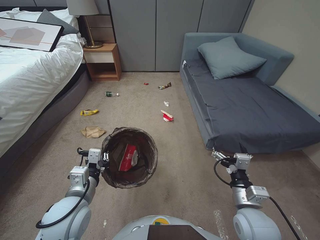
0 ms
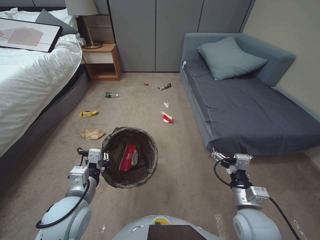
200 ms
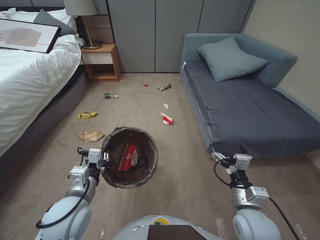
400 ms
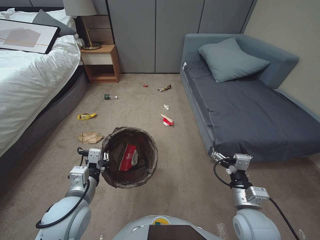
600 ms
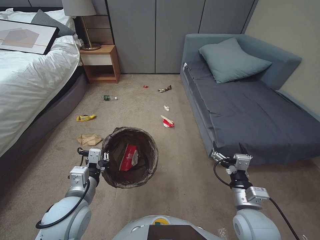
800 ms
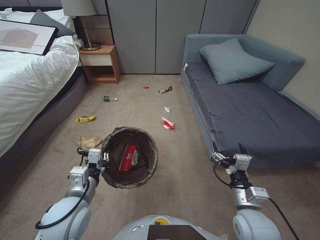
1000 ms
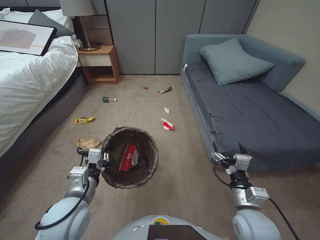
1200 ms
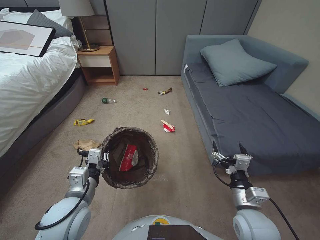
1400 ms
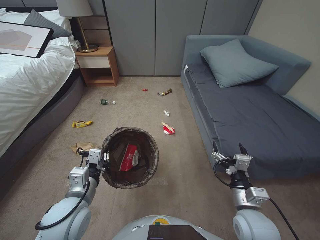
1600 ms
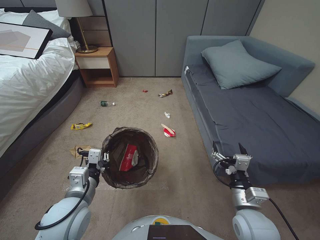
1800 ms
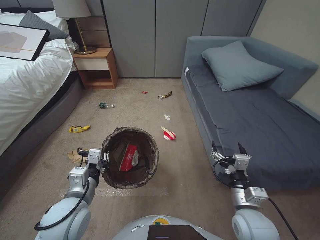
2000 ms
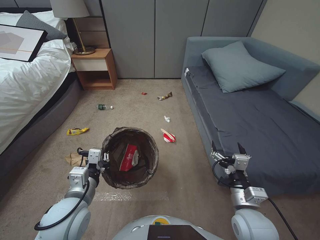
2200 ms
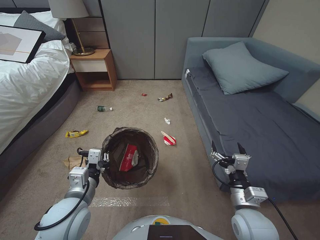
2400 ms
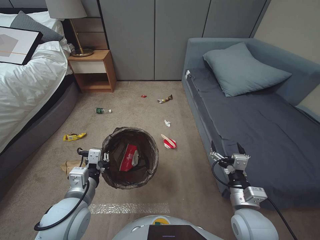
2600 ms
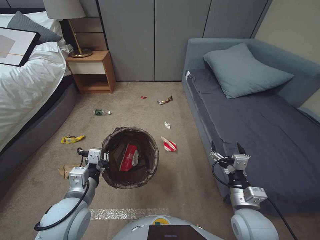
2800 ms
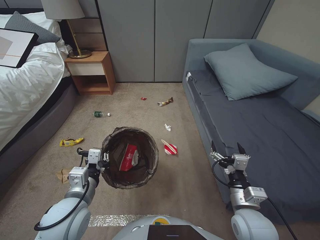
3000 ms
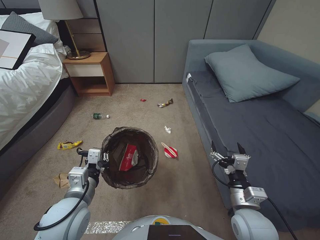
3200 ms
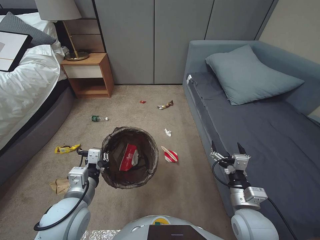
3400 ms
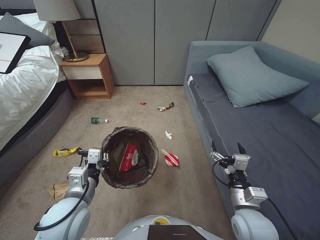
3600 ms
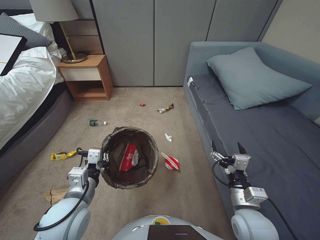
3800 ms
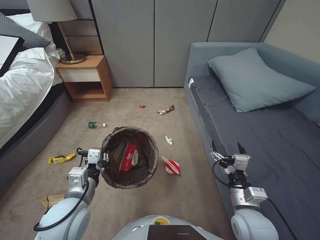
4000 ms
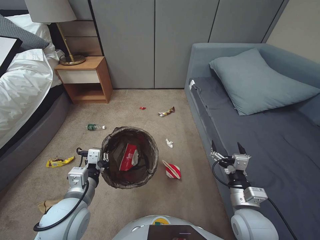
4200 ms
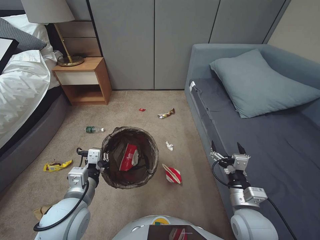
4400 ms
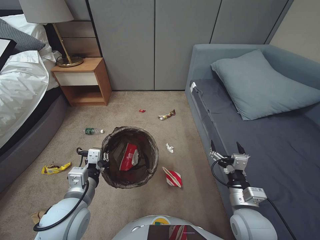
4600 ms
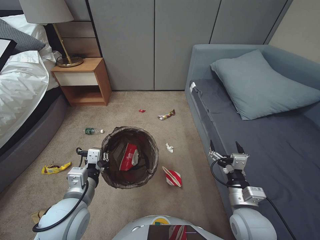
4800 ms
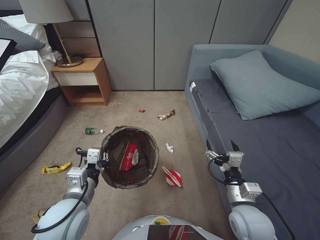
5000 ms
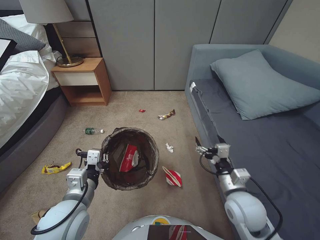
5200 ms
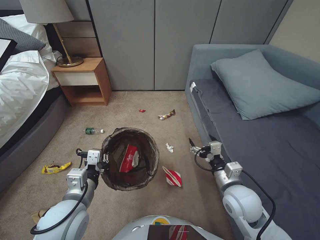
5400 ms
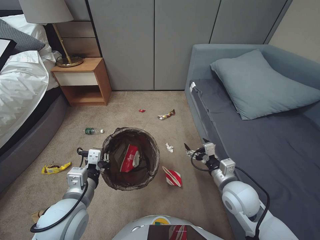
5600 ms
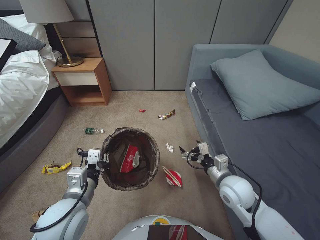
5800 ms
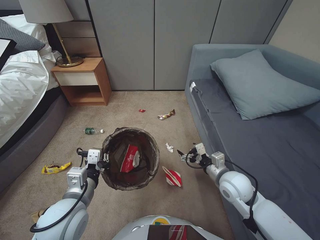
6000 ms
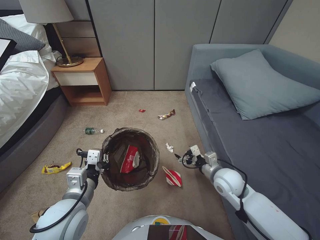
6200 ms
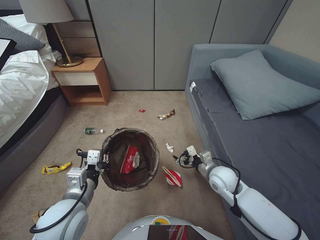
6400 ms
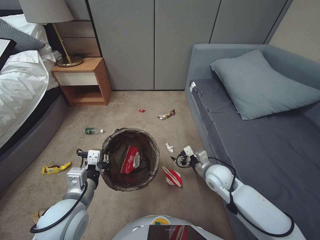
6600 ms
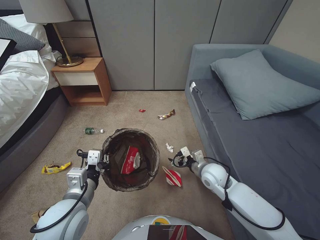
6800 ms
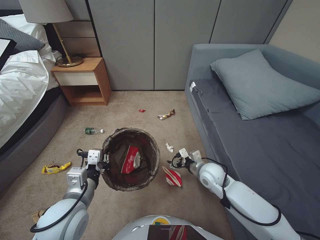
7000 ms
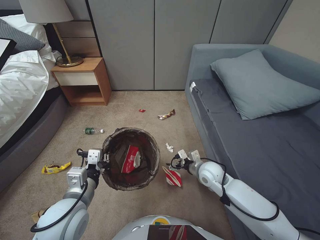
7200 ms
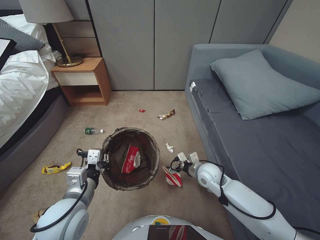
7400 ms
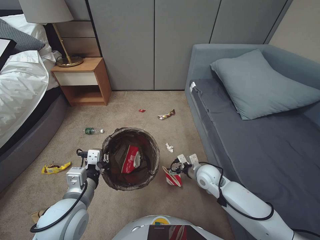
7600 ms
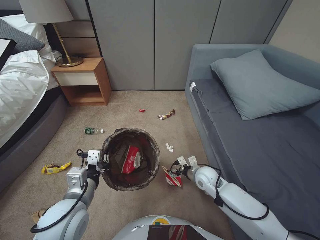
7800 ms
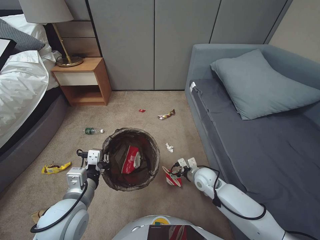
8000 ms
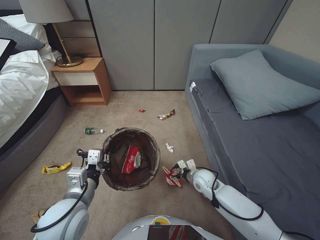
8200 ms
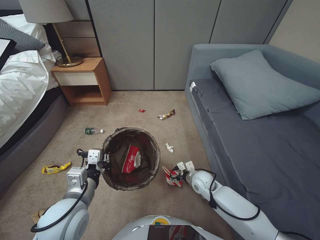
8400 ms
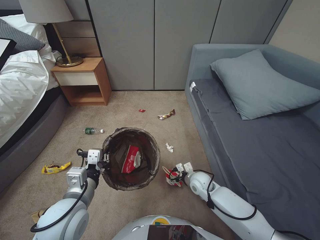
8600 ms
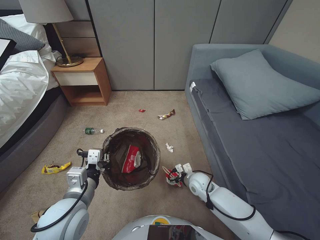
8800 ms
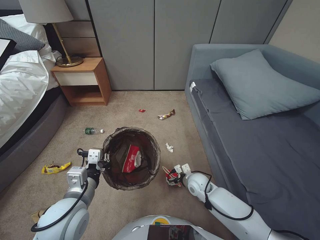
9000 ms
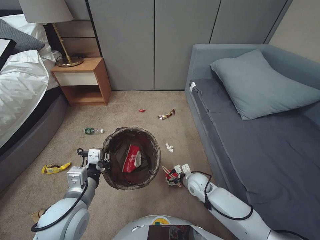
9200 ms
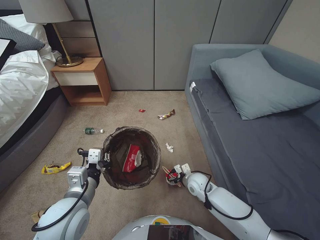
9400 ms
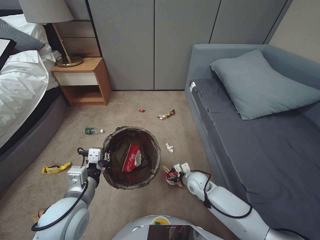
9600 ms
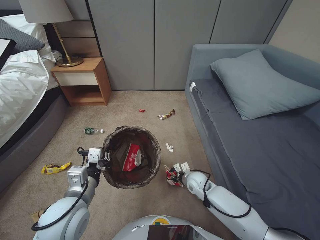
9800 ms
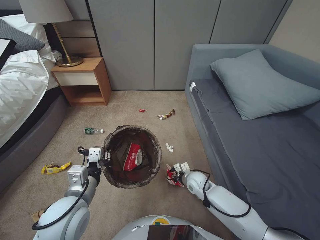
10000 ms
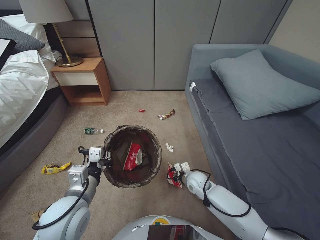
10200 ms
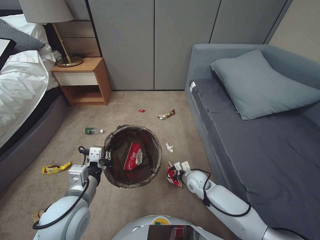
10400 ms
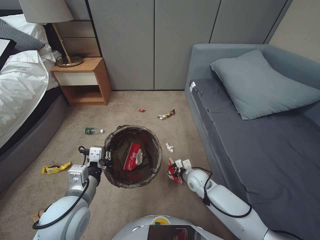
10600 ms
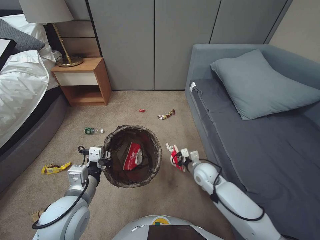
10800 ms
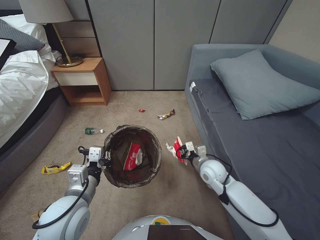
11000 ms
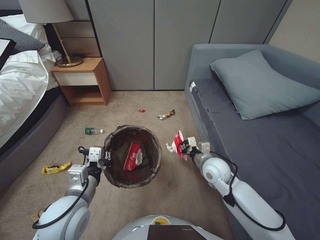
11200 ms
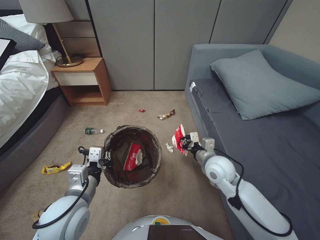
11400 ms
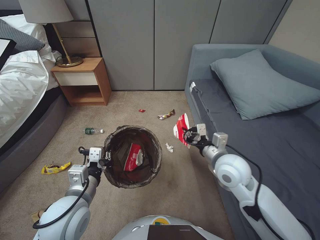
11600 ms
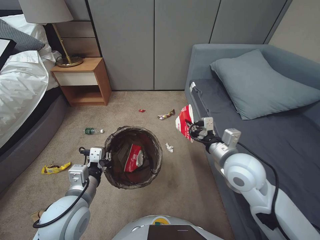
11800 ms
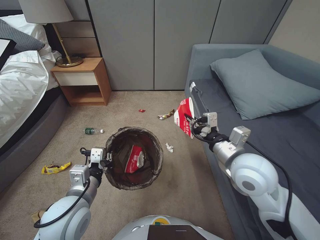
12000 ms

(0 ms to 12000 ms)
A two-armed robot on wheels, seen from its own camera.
Task of the whole recording: Pick up the trash bin, then pick up the garbage from the floor and place it into the trash bin.
0 ms - 4400 ms: The two grippers keep their place.
4400 ms - 6000 ms: The right gripper is displaced forward by roughly 10 cm.
6000 ms - 7600 ms: The right gripper is displaced downward and forward by roughly 10 cm.
7600 ms - 9000 ms: The right gripper moves downward, some 10 cm.
9000 ms - 10400 ms: The right gripper closes.
10400 ms - 12000 ms: The right gripper shifts some 30 cm upward.

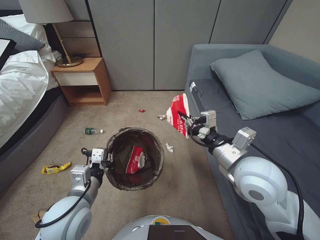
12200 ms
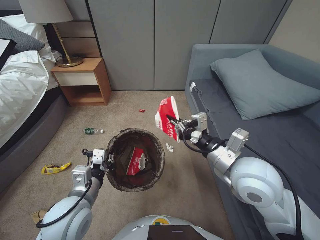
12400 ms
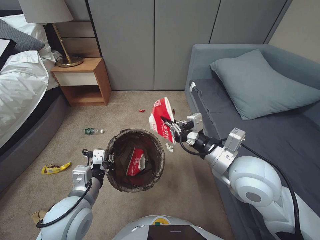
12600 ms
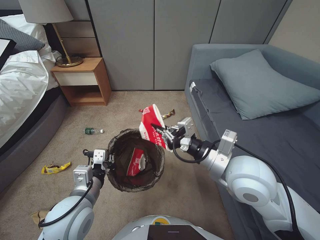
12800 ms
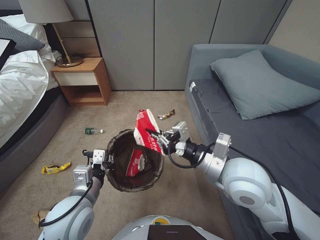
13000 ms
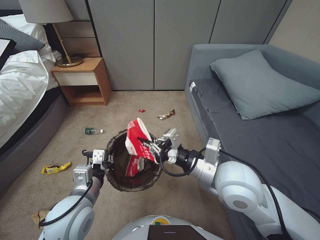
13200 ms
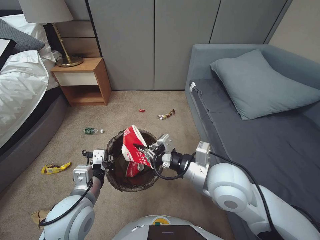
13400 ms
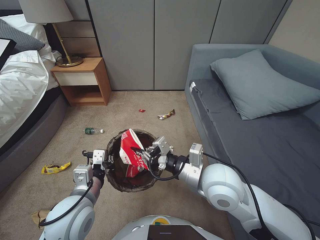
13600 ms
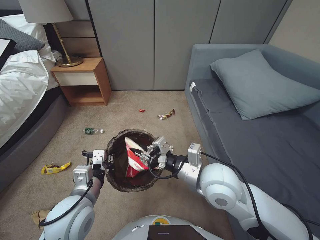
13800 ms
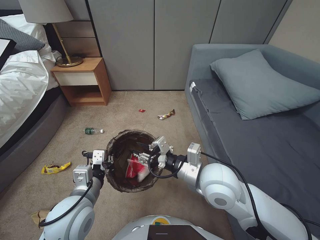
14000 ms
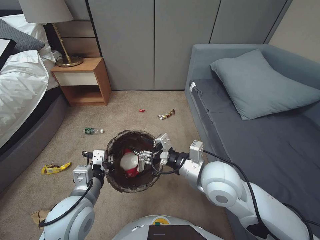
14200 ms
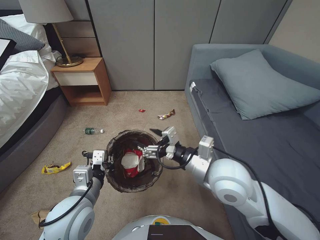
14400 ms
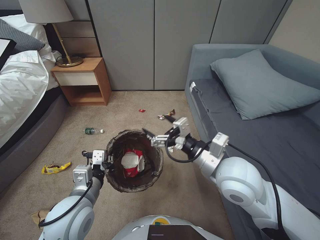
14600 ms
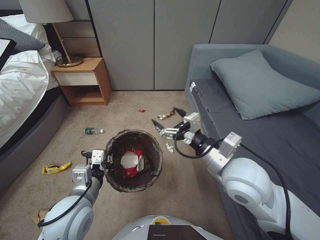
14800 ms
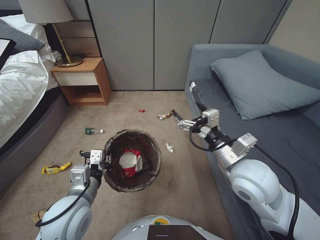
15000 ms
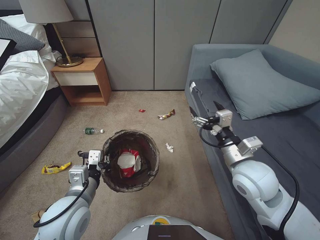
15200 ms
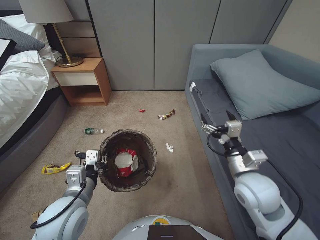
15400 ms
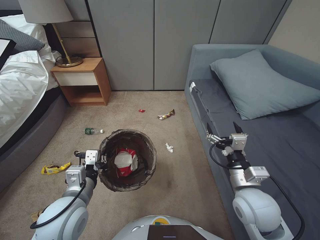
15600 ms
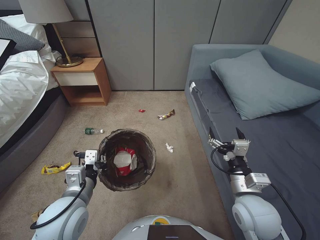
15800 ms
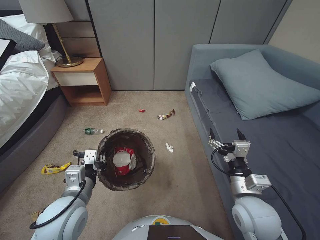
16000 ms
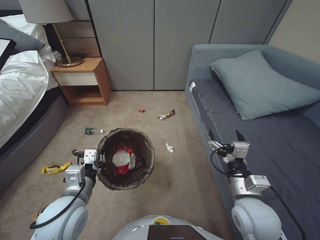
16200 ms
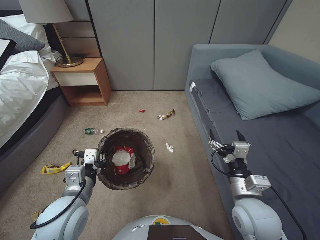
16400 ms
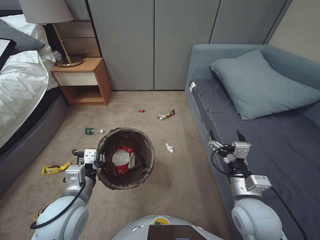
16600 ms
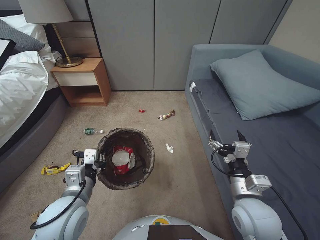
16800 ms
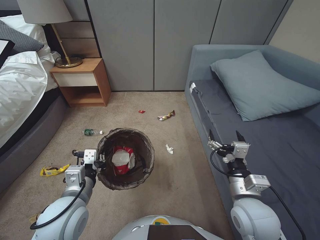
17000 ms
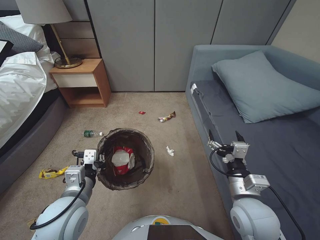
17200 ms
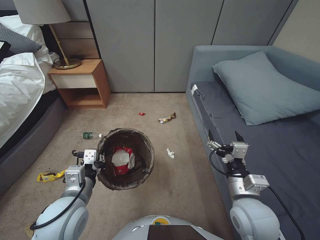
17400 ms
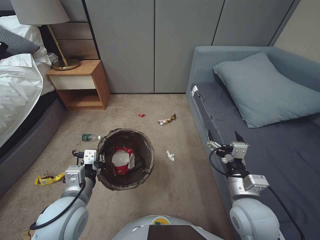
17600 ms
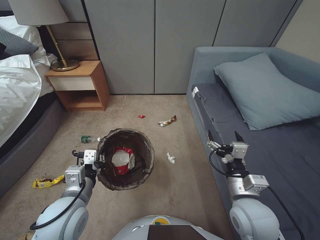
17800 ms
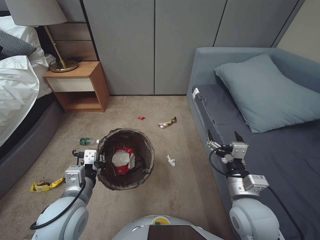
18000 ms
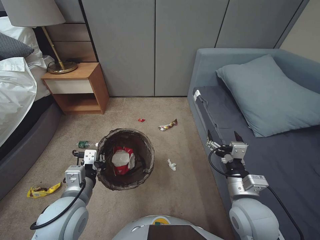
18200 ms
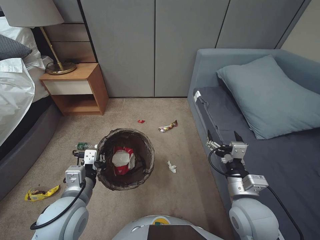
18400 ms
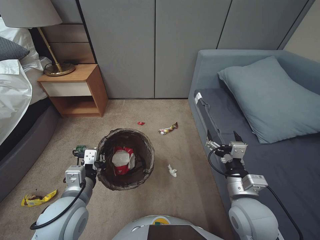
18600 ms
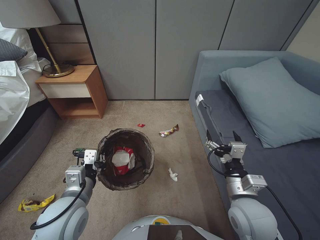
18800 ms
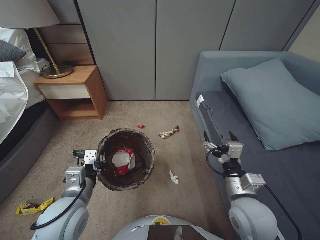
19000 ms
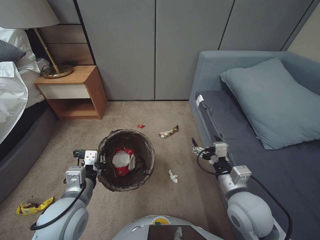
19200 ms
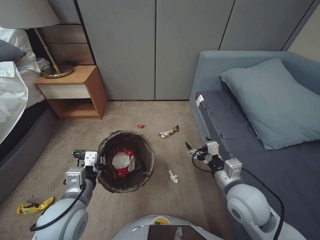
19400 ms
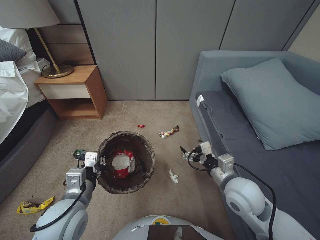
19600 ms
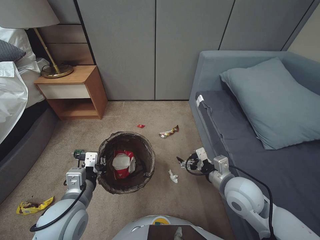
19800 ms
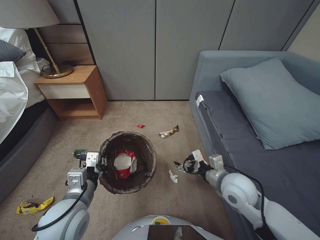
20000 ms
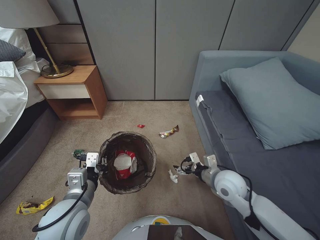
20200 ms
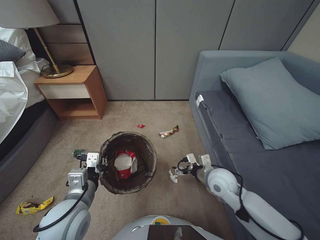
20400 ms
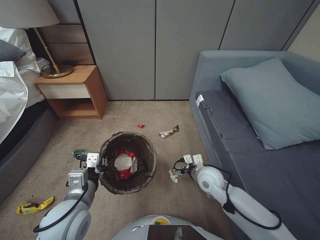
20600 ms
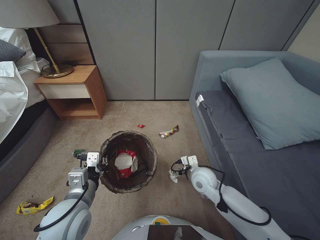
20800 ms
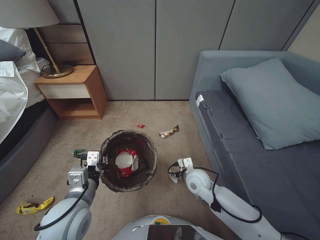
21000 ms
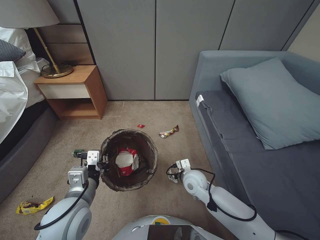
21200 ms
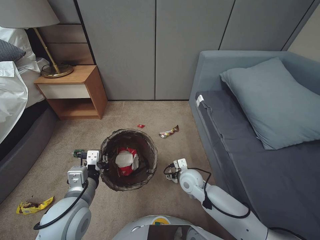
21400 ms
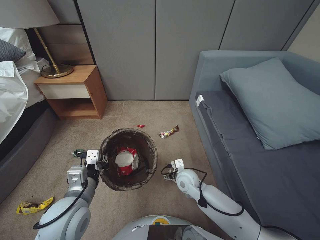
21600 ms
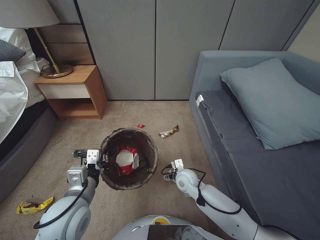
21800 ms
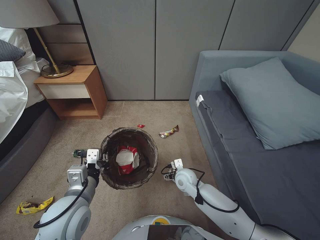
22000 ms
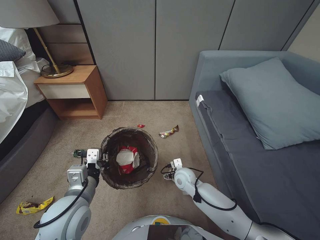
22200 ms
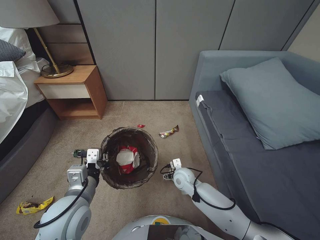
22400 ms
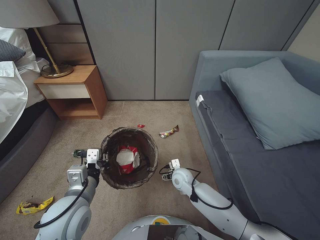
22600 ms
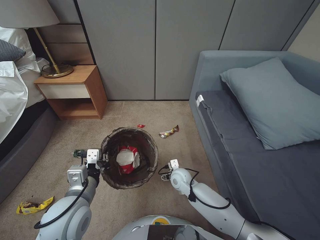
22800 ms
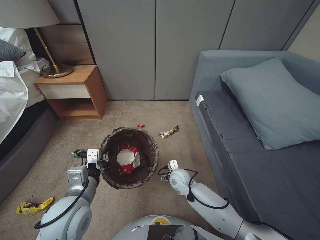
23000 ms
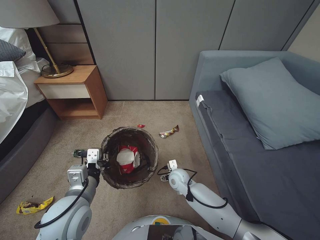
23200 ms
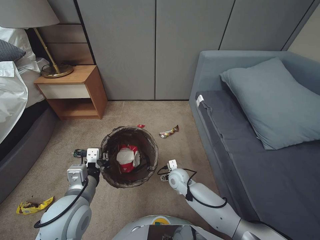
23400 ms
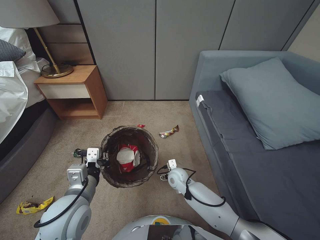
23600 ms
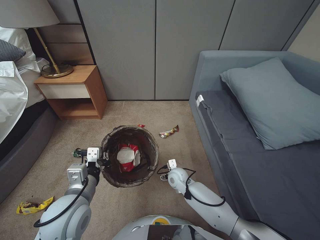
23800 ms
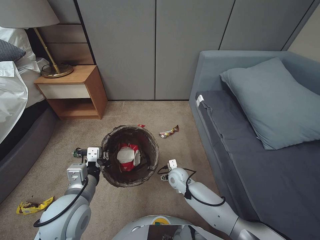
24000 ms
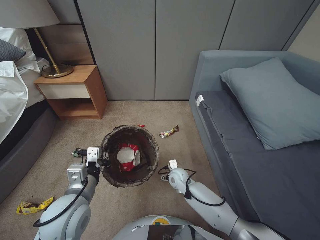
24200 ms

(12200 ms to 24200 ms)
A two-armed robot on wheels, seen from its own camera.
Task of the whole recording: Pick up the trash bin, then pick up the garbage from the floor and place it into the trash bin.
12200 ms - 13800 ms: The right gripper heads to the left, covering some 10 cm.
13800 ms - 15200 ms: The right gripper travels to the right by some 10 cm, and opens.
15200 ms - 16600 ms: The right gripper travels downward and backward by approximately 10 cm.
16600 ms - 18200 ms: Both grippers stay about where they are.
18200 ms - 19800 ms: The right gripper heads forward, covering some 5 cm.
19800 ms - 21200 ms: The right gripper shifts about 20 cm downward, to the left and forward.
21200 ms - 22600 ms: The right gripper changes place by roughly 5 cm.
22600 ms - 24200 ms: The grippers make only small movements.
